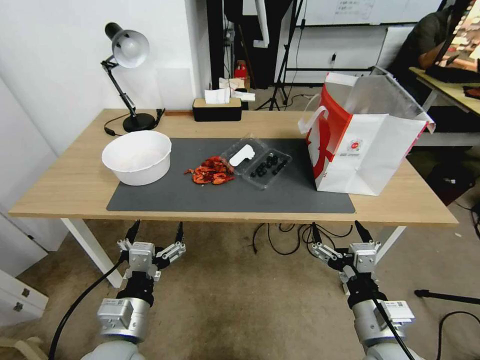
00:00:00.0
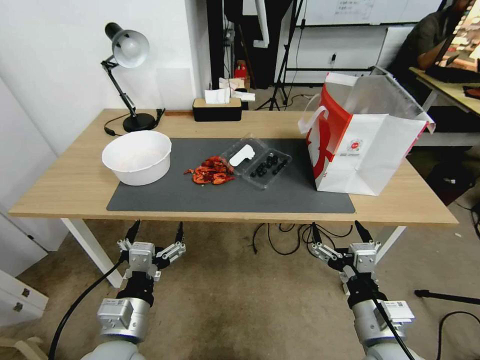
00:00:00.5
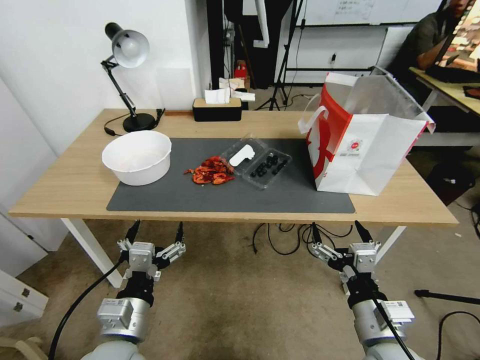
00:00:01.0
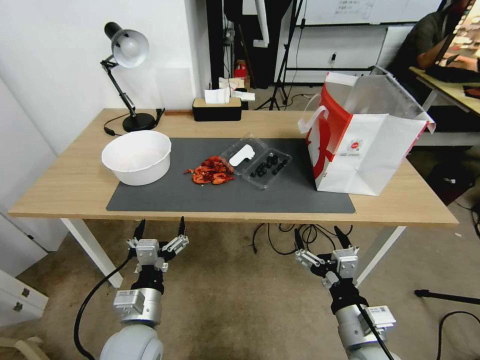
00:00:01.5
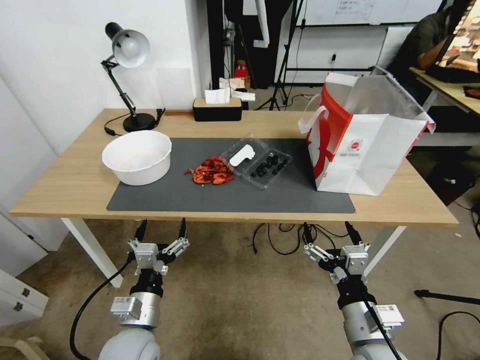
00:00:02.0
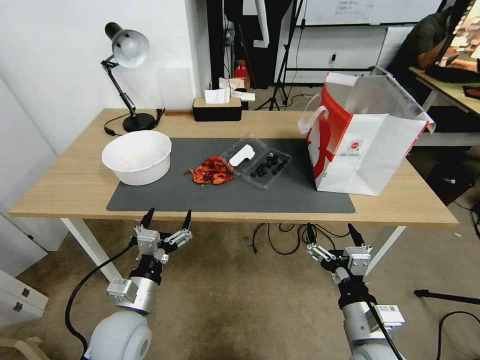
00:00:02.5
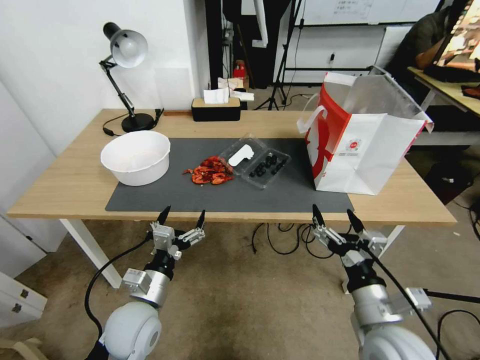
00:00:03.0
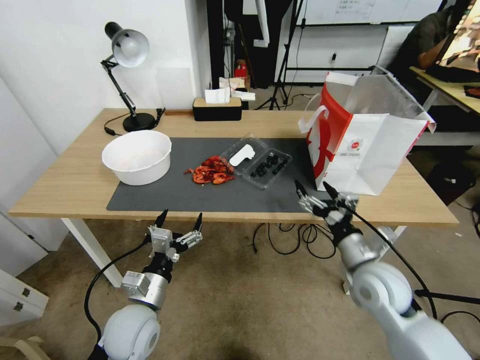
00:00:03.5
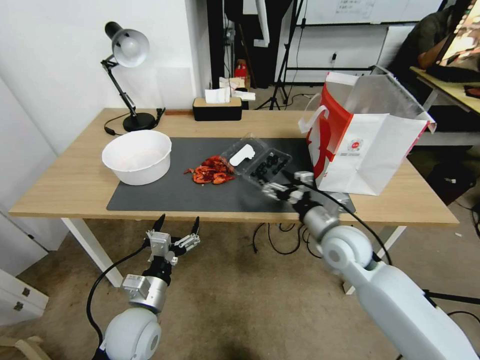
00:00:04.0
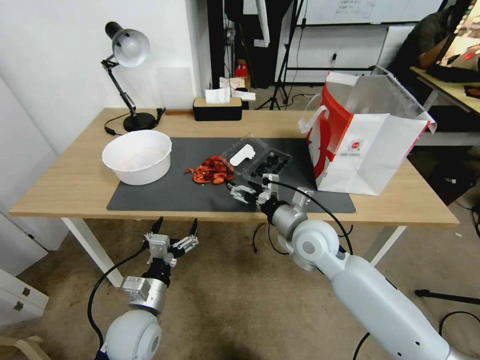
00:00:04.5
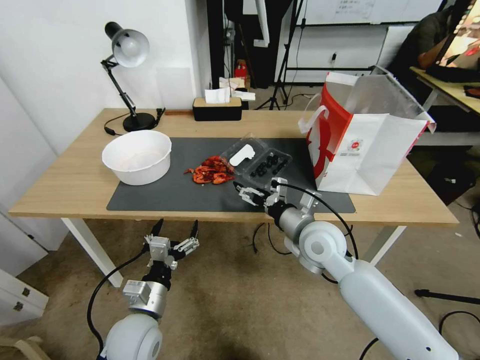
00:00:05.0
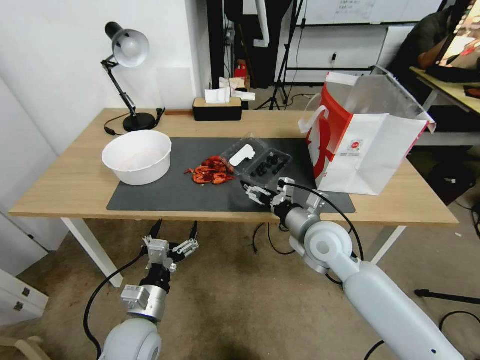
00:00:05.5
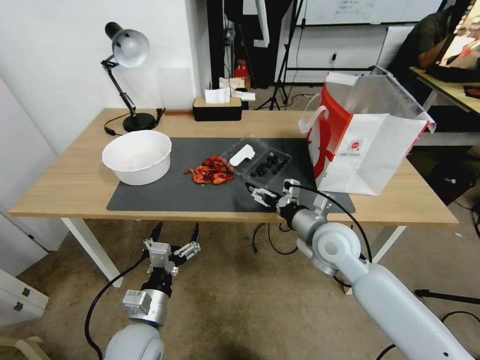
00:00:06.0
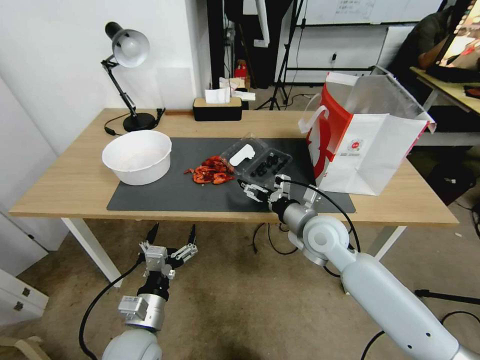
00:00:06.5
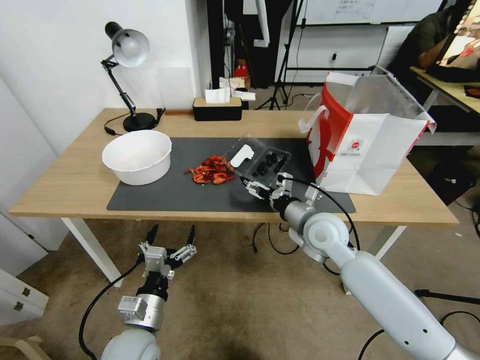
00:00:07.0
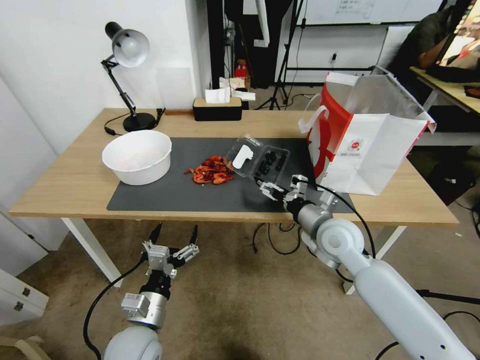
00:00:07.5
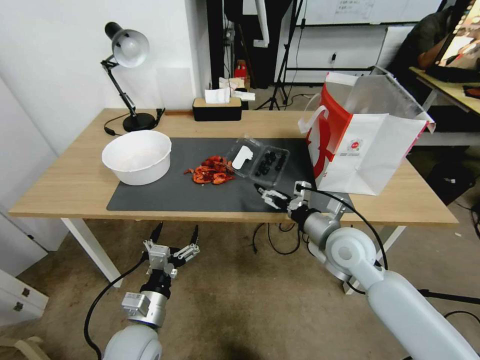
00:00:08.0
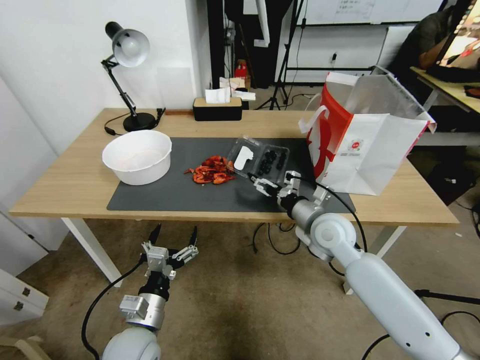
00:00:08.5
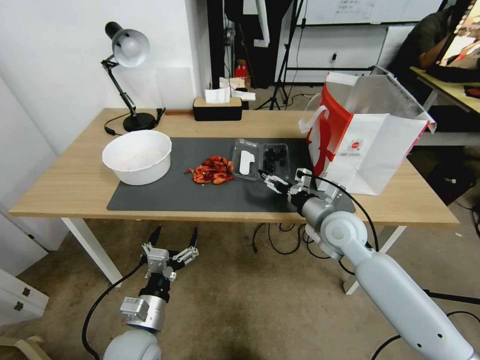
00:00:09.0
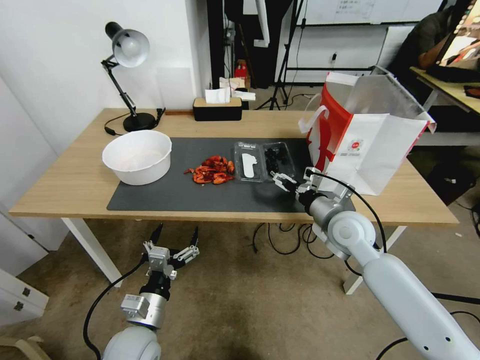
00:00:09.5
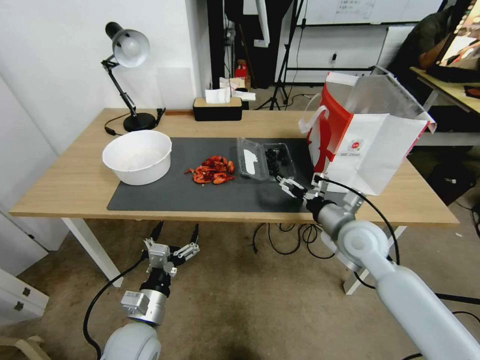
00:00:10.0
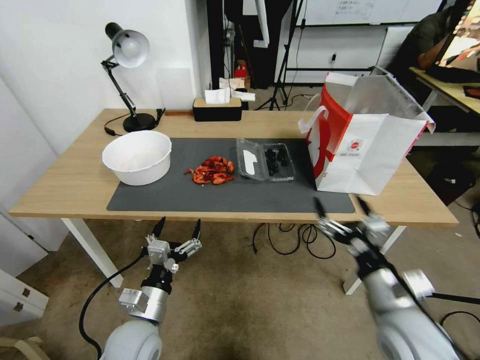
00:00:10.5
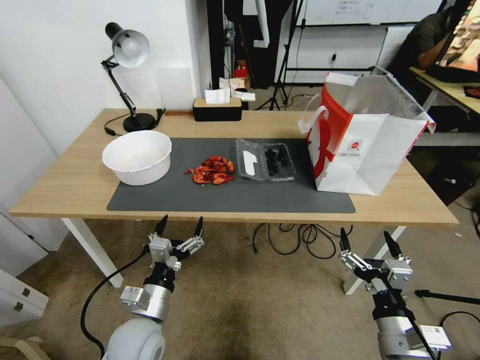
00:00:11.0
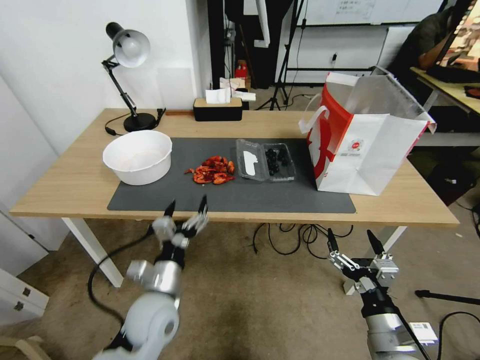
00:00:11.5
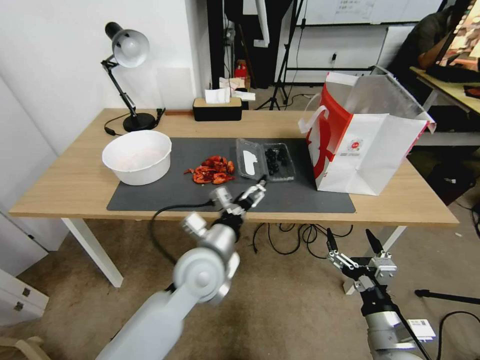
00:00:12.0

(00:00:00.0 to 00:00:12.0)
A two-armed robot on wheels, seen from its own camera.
00:00:02.0 - 00:00:04.0: The right gripper goes roughly 20 cm forward.
00:00:06.0 - 00:00:10.0: The grippers make only small movements.
00:00:10.0 - 00:00:12.0: The left gripper moves to the right, upward and forward, roughly 20 cm. The right gripper moves backward, roughly 20 cm.

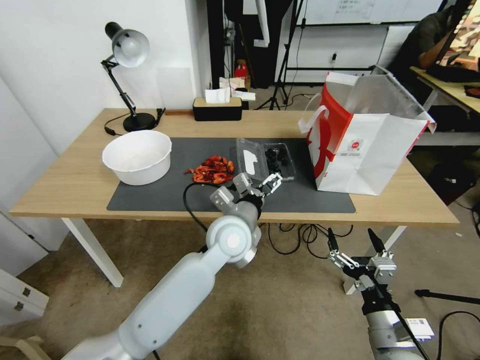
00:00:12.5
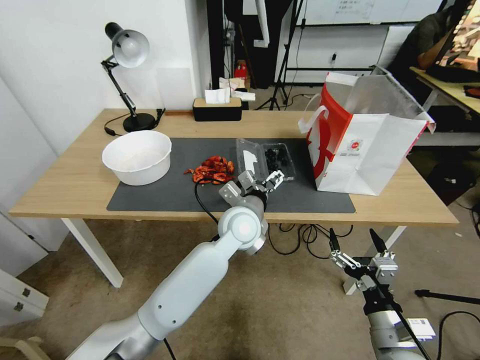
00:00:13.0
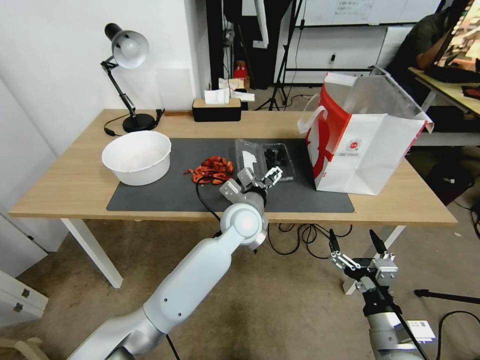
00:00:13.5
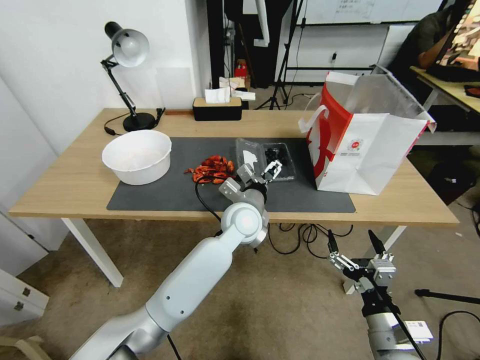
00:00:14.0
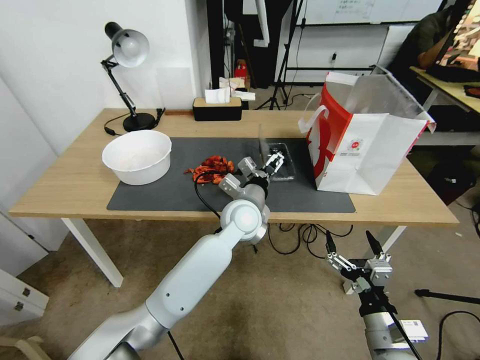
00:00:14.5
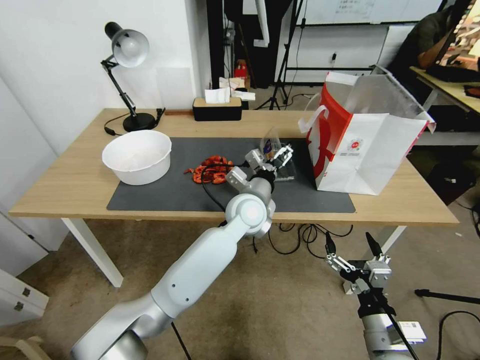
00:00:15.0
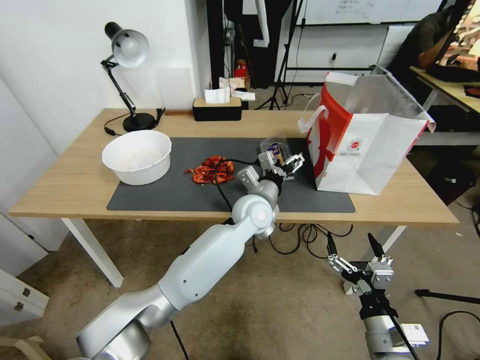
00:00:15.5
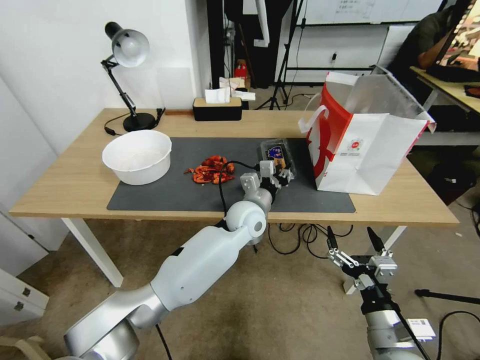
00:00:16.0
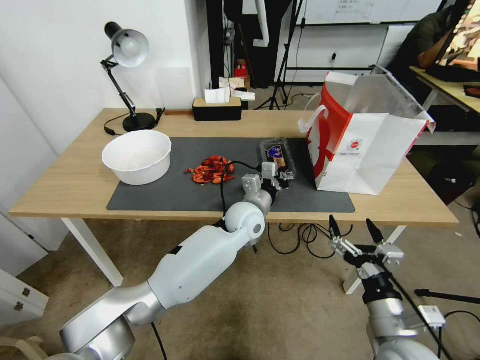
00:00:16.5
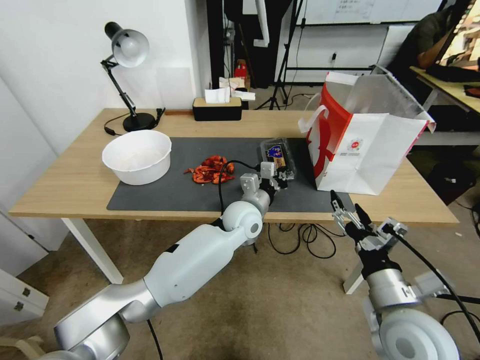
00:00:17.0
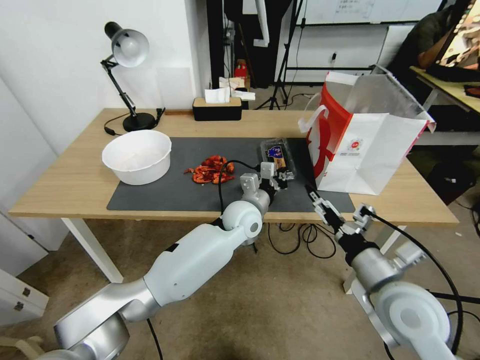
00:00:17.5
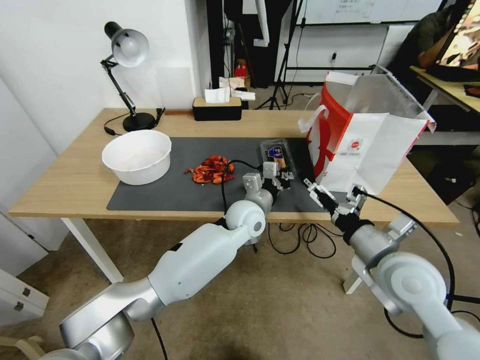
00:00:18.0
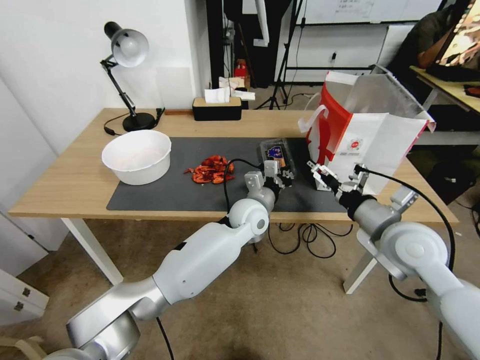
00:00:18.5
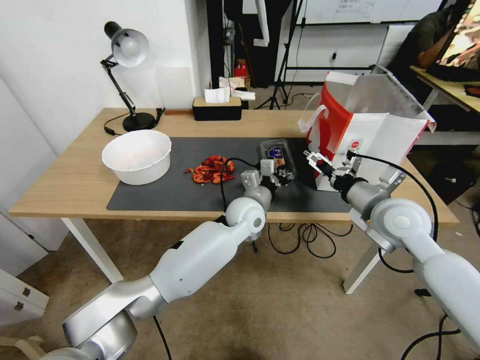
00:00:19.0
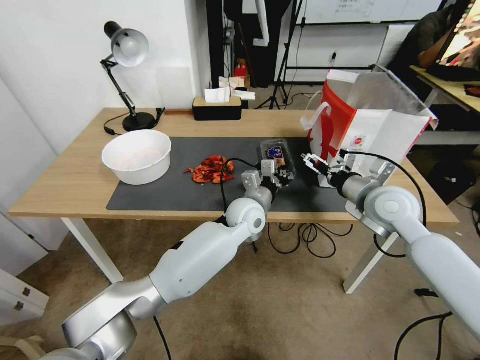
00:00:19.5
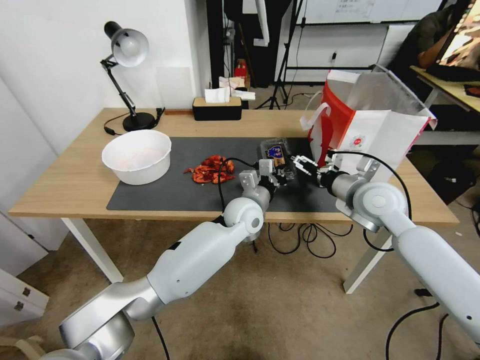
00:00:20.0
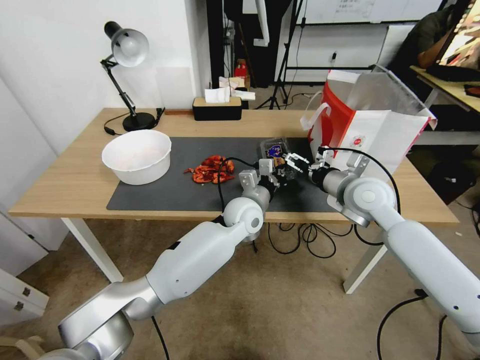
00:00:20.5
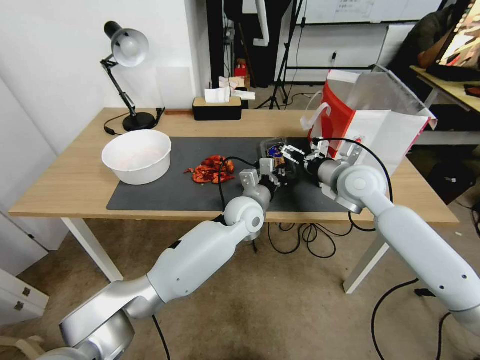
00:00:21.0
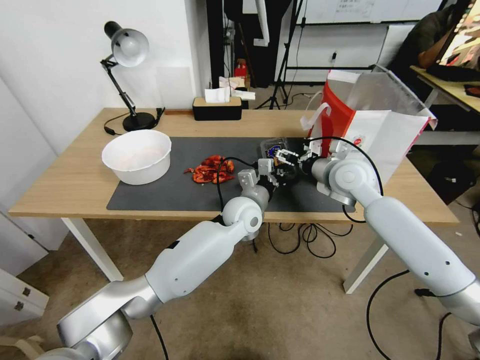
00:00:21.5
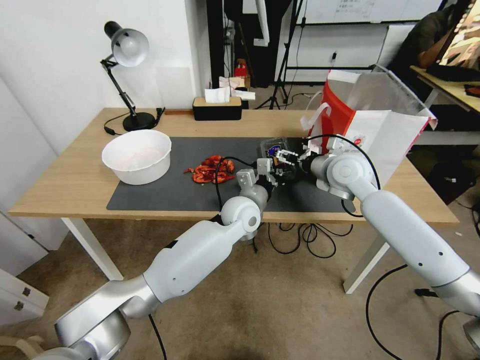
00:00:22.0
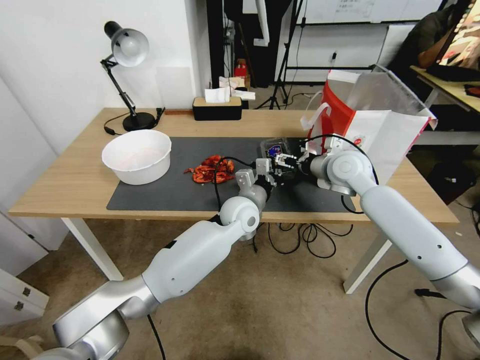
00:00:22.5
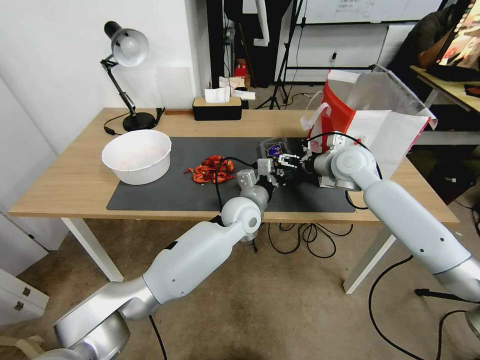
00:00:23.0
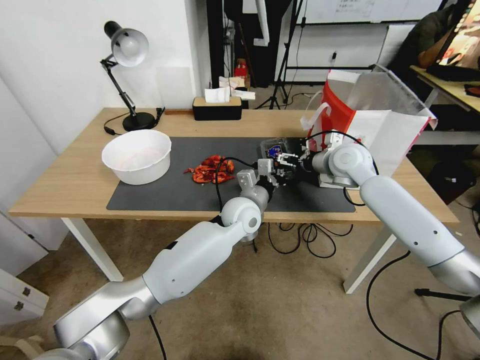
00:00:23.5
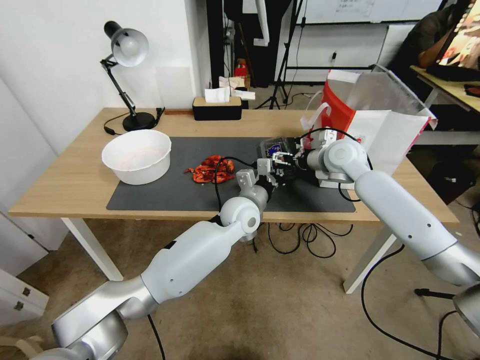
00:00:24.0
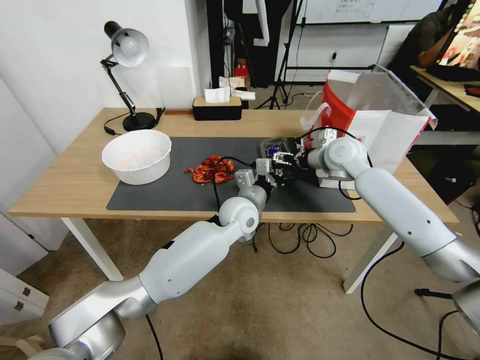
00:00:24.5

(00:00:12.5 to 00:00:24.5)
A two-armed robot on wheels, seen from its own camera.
00:00:12.5 - 00:00:14.5: The left gripper heads forward, covering about 5 cm.
00:00:14.5 - 00:00:16.5: The left gripper closes.
00:00:16.5 - 00:00:18.5: The right gripper shifts about 20 cm forward and upward.
00:00:18.5 - 00:00:20.5: The right gripper heads forward, covering roughly 10 cm.
00:00:20.5 - 00:00:22.5: The right gripper shifts approximately 5 cm forward.
00:00:22.5 - 00:00:24.5: There are only small adjustments of the grippers.

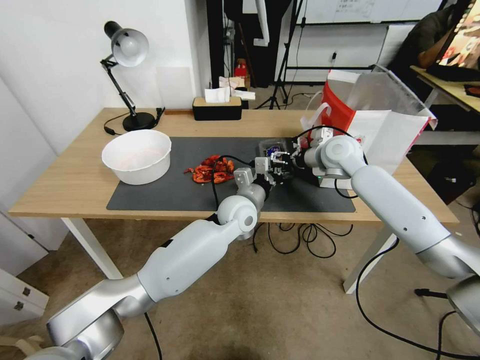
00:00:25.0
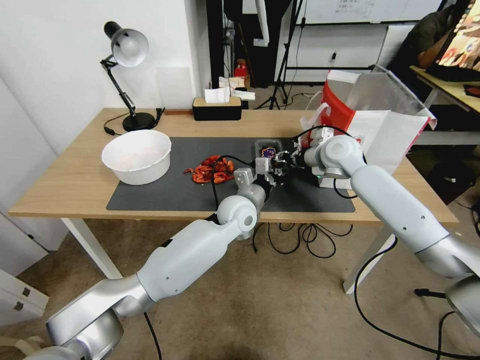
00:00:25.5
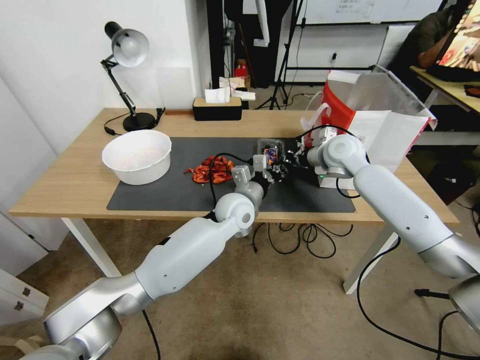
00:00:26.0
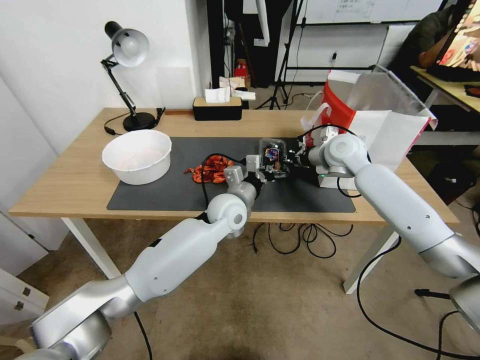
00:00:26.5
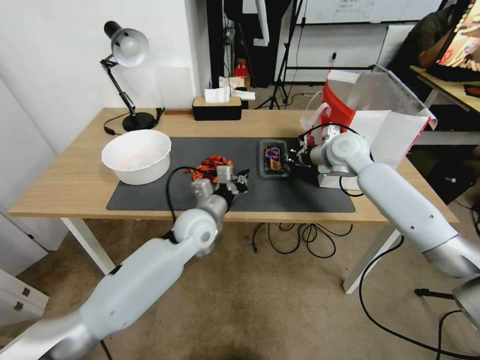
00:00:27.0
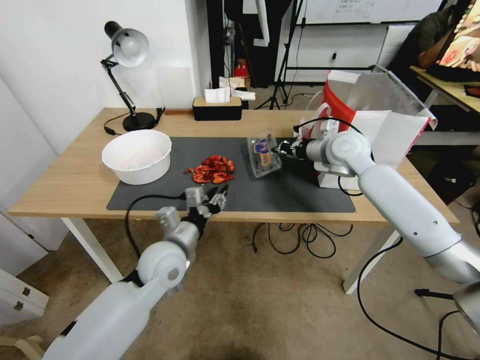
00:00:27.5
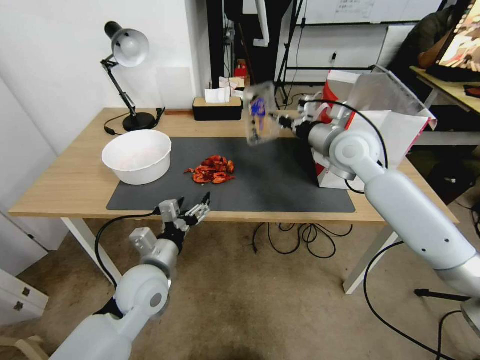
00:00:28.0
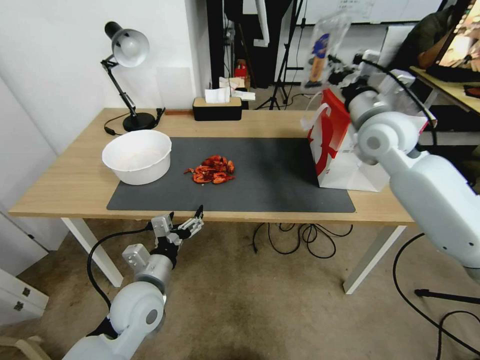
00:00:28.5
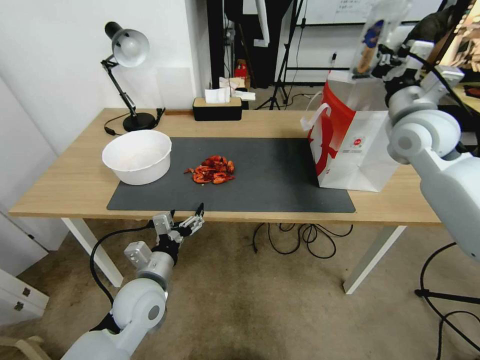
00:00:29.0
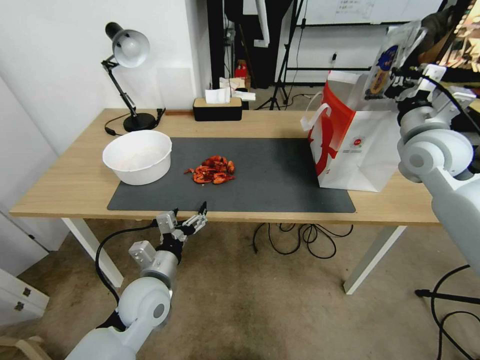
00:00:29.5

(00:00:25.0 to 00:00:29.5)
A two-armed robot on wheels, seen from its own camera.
00:00:25.0 - 00:00:27.0: The left gripper moves to the left, roughly 10 cm; the right gripper closes.
00:00:27.0 - 00:00:29.5: The right gripper travels backward, to the right and upward by roughly 15 cm. The left gripper goes some 15 cm backward and to the left, and opens its fingers.
